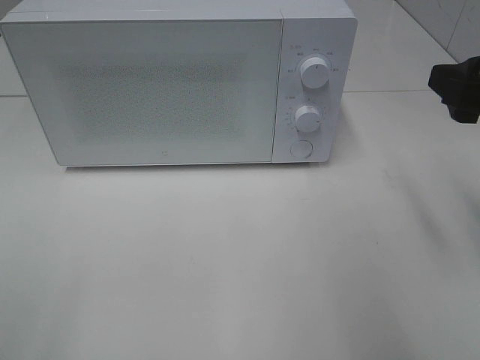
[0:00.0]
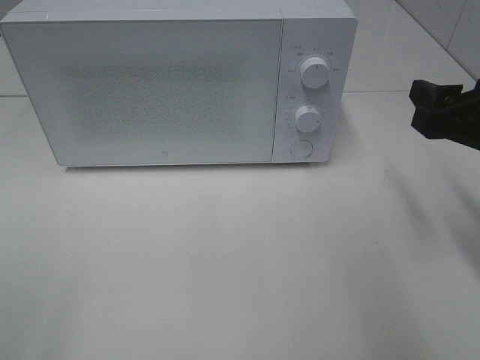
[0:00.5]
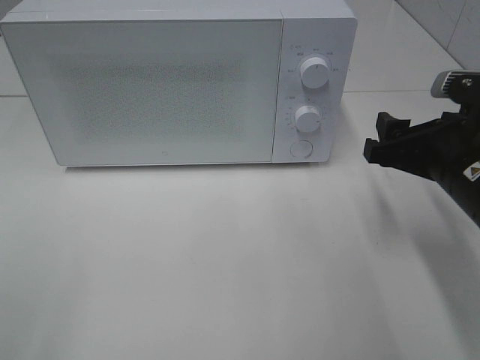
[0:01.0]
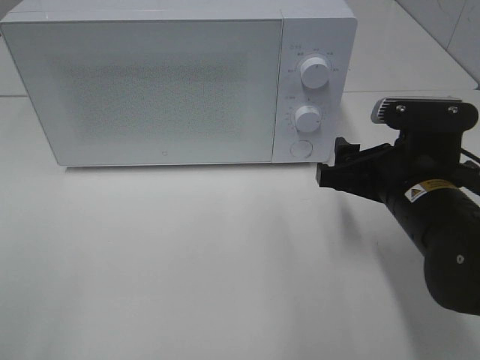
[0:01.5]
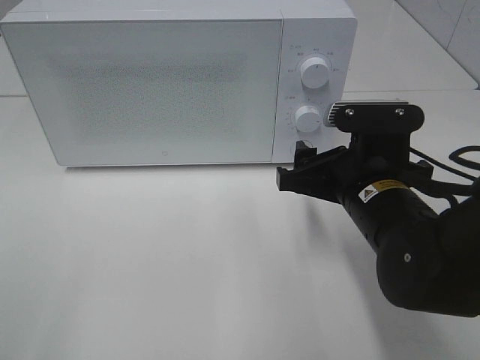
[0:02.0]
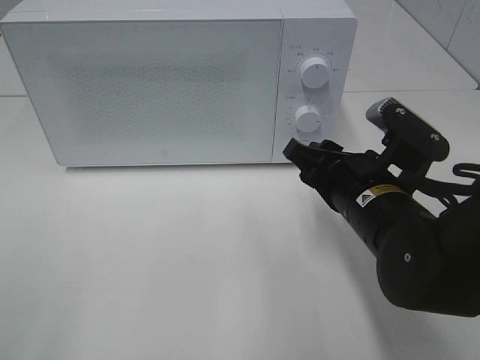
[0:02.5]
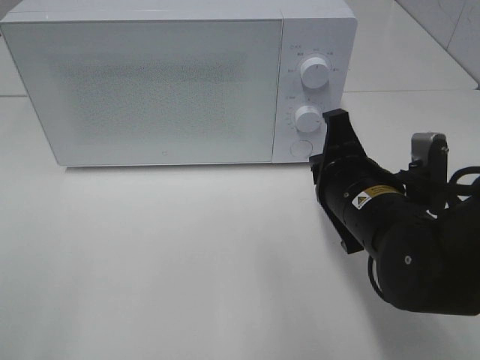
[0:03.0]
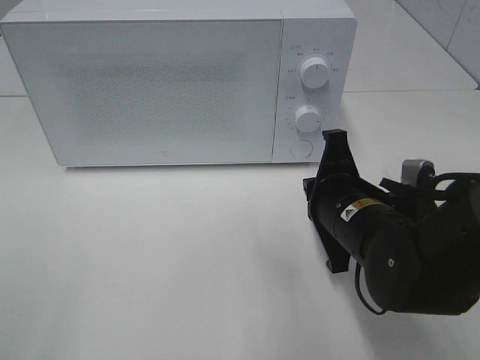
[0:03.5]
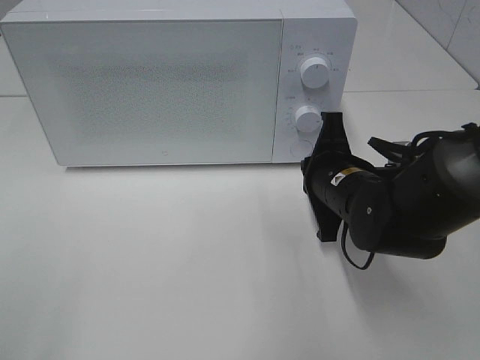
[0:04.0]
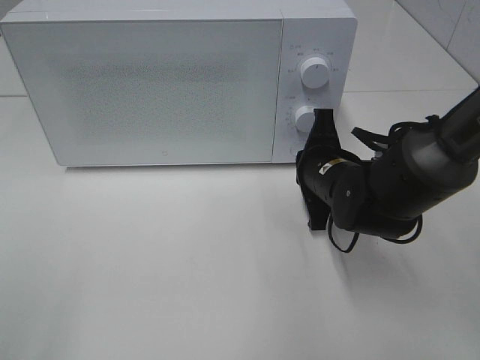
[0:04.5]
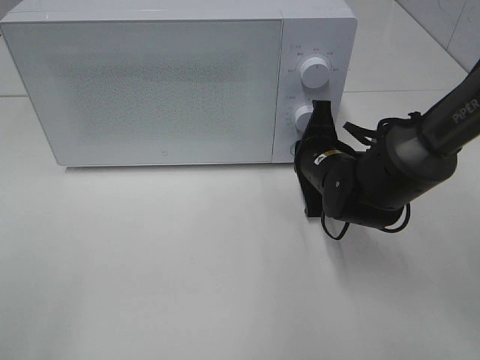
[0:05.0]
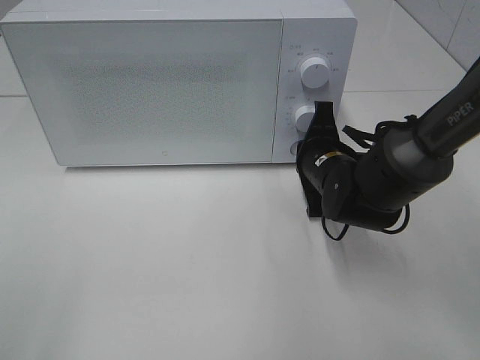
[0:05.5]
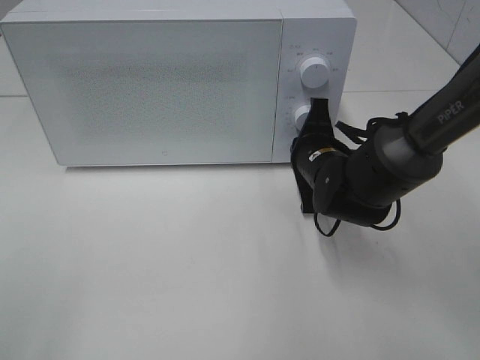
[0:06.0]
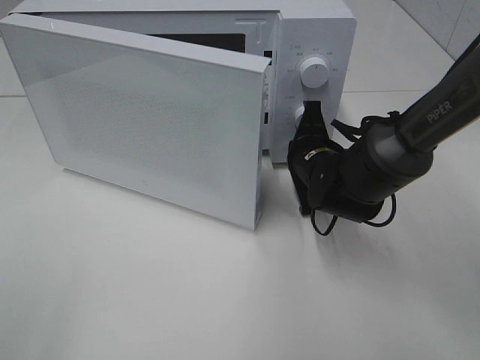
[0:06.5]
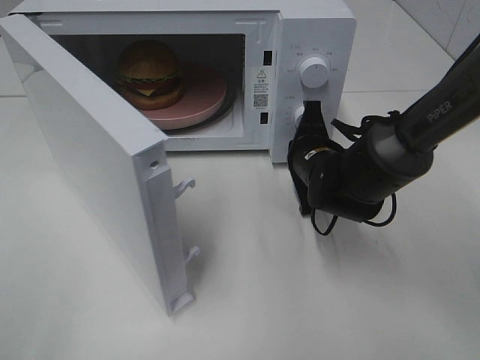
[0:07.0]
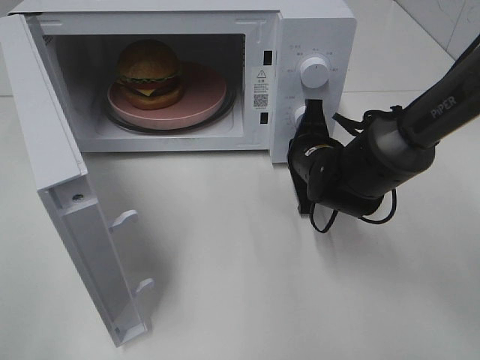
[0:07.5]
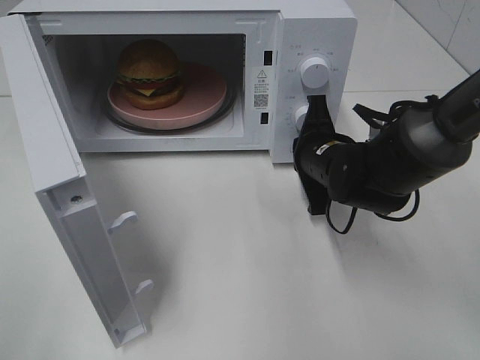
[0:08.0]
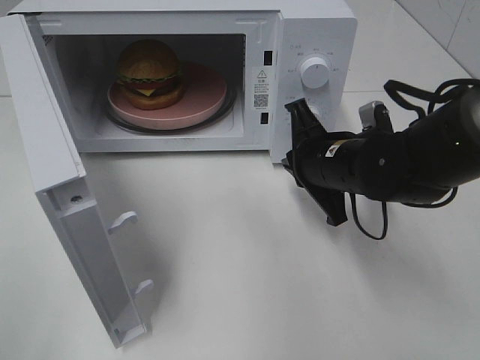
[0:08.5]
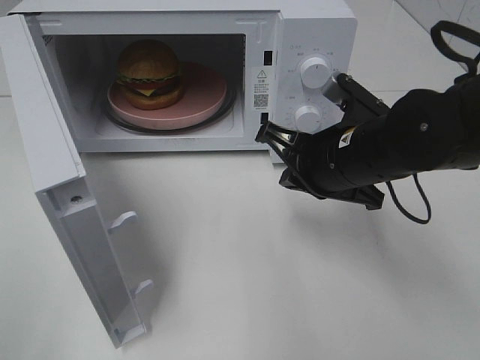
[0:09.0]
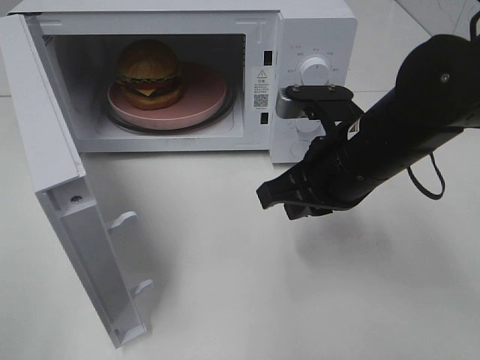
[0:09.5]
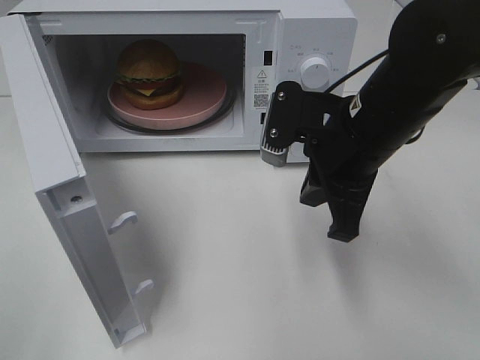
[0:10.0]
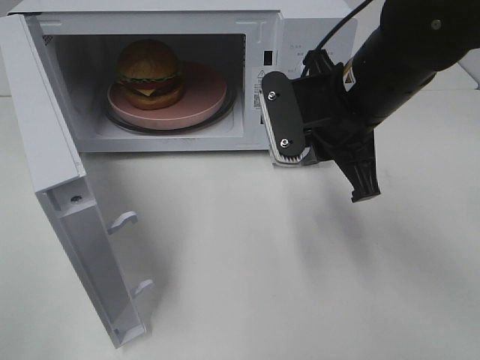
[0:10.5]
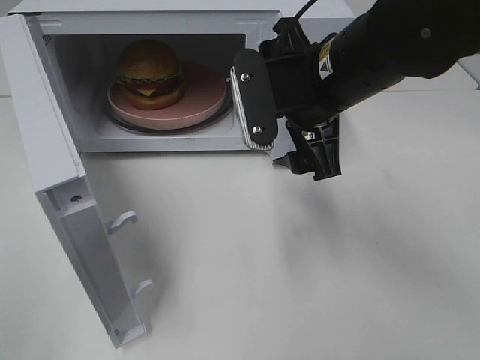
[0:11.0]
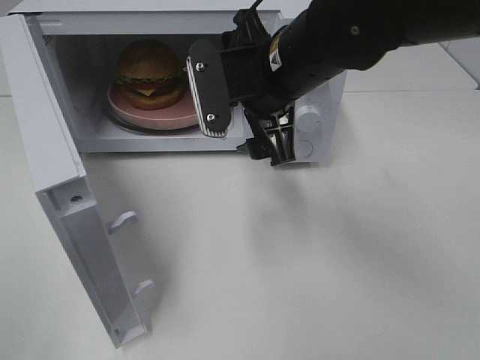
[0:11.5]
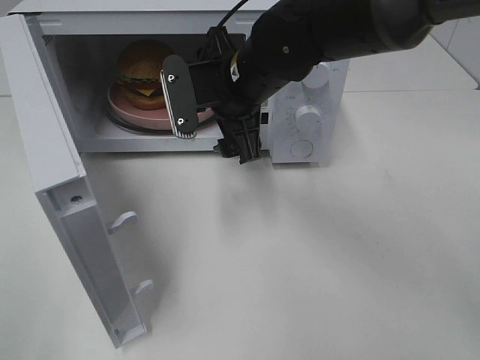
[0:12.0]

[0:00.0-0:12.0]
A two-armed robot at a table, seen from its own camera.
Task of the whole recording: Heat the burger.
Step, 0:00.0 to 0:08.0: Right hand: press the switch.
0:00.0 to 0:02.0: The right gripper is displaced to the left and downward by some 15 cm.
0:02.0 to 0:04.0: The right gripper is displaced forward by roughly 5 cm, and closes its fingers.
0:04.0 to 0:06.0: The right gripper travels forward by about 5 cm.
0:08.0 to 0:10.0: The right gripper travels upward and backward by approximately 15 cm.
0:10.0 to 0:12.0: The right gripper moves to the left and forward, about 15 cm, and opens.

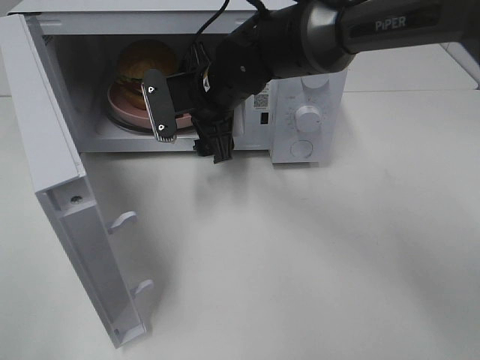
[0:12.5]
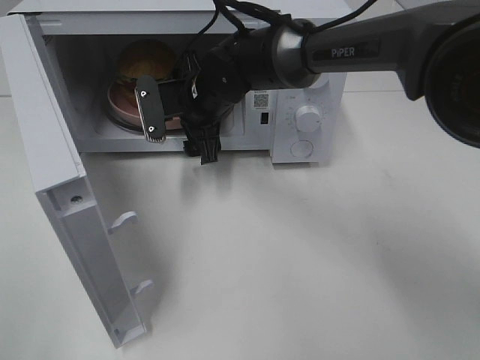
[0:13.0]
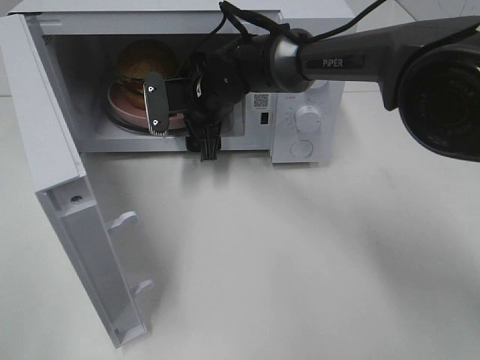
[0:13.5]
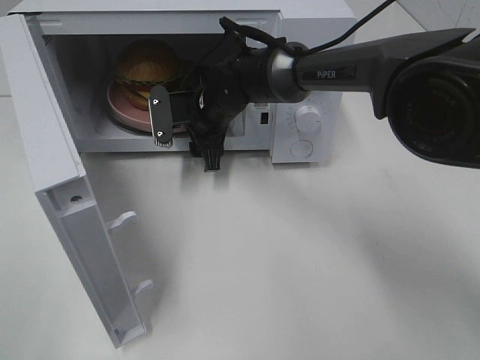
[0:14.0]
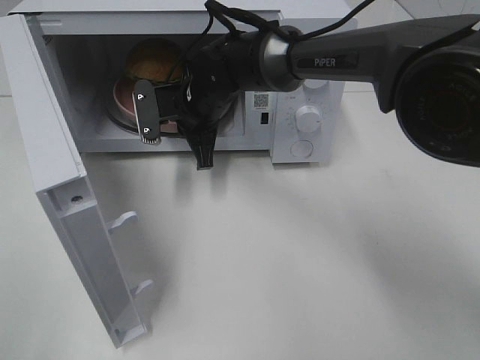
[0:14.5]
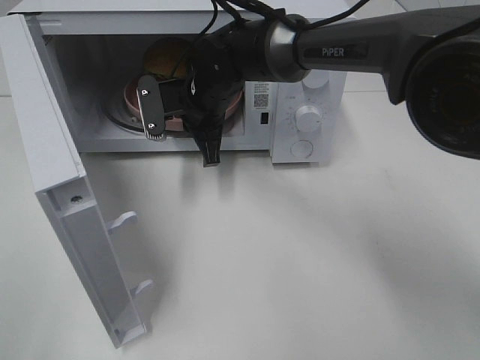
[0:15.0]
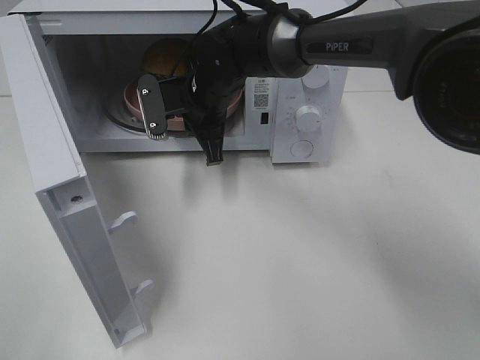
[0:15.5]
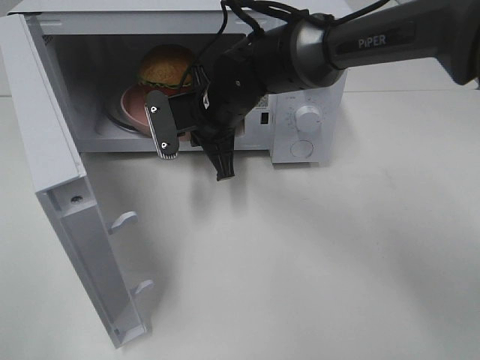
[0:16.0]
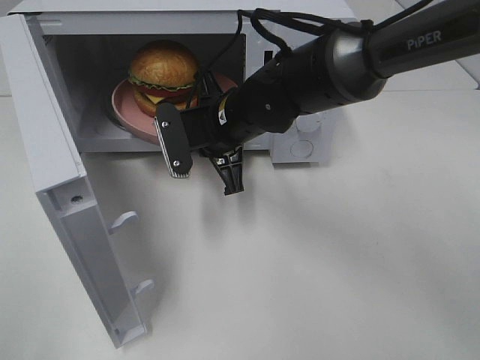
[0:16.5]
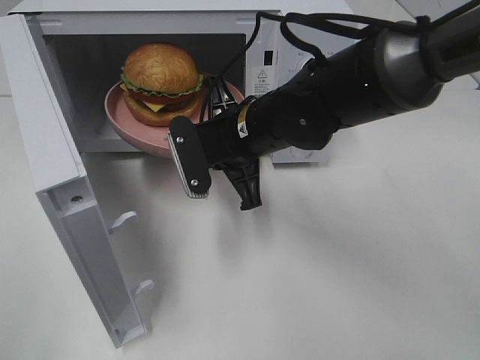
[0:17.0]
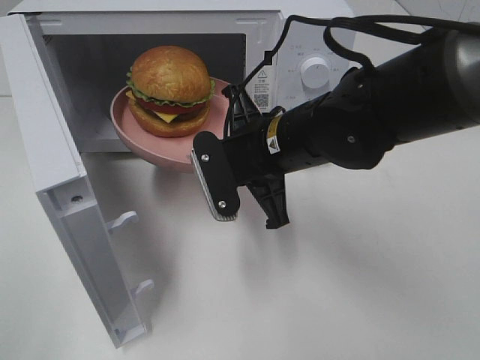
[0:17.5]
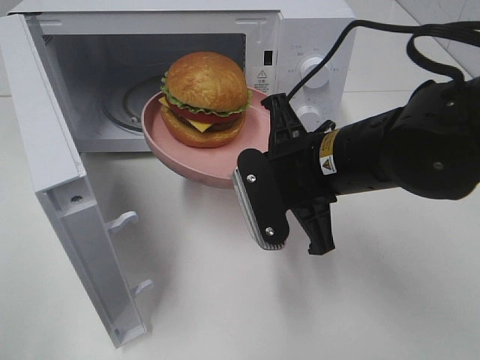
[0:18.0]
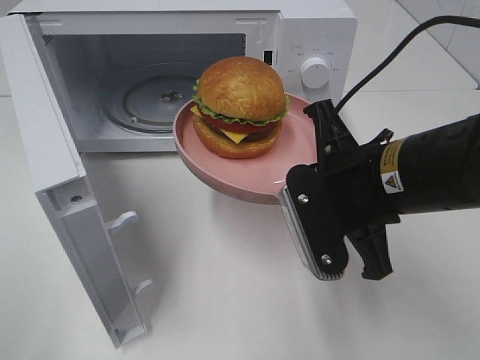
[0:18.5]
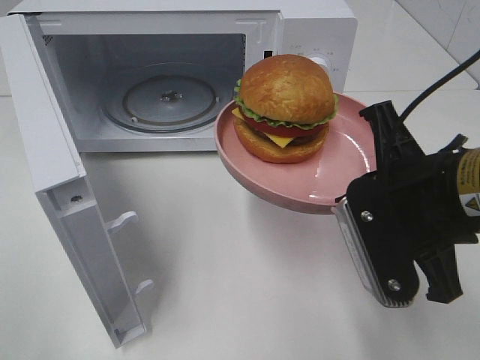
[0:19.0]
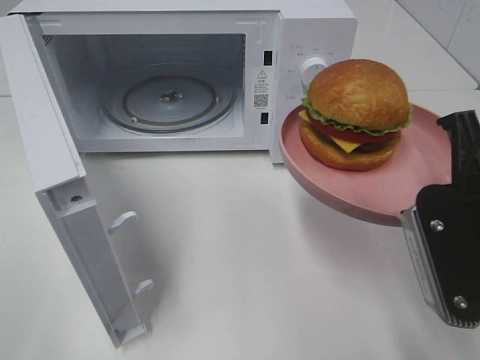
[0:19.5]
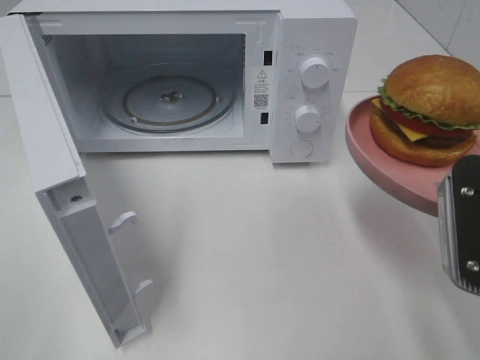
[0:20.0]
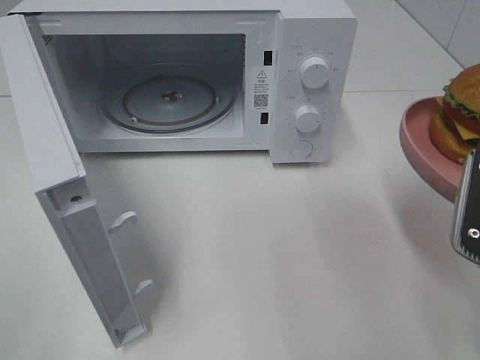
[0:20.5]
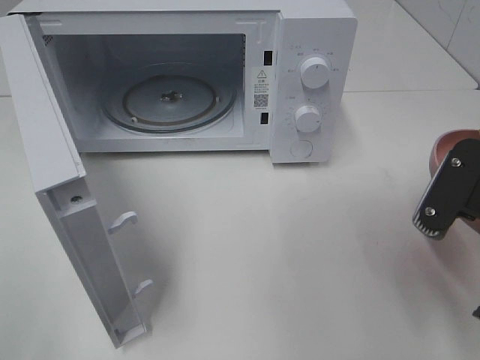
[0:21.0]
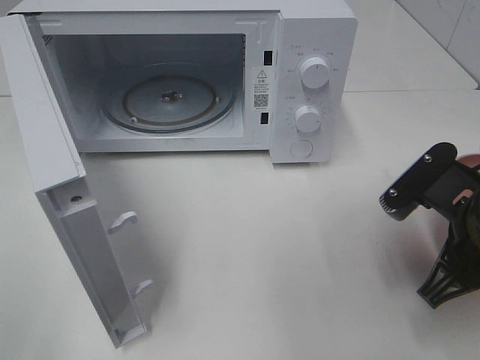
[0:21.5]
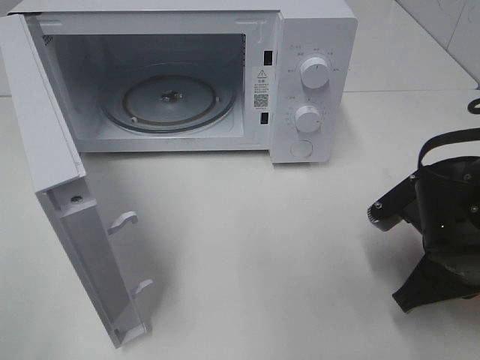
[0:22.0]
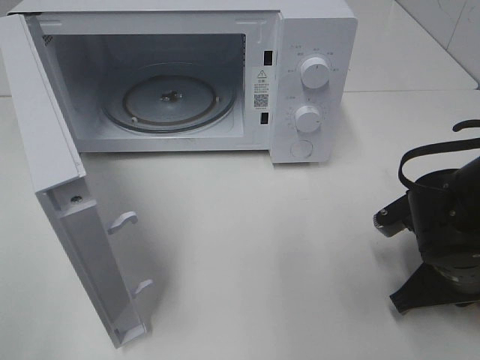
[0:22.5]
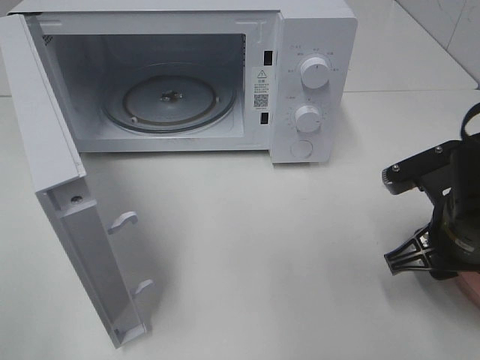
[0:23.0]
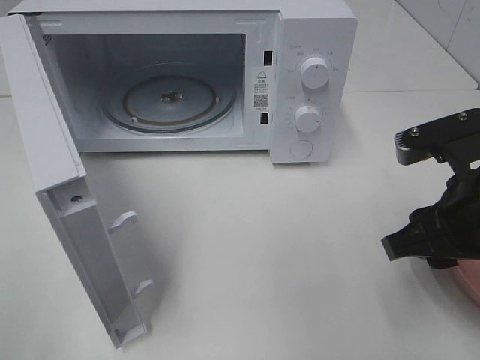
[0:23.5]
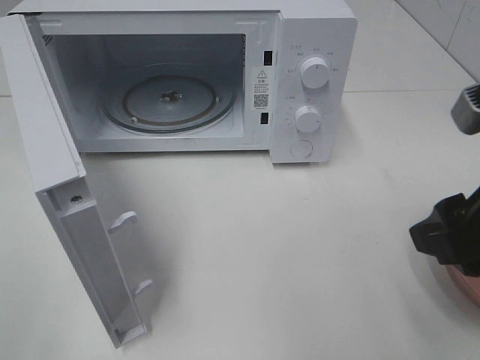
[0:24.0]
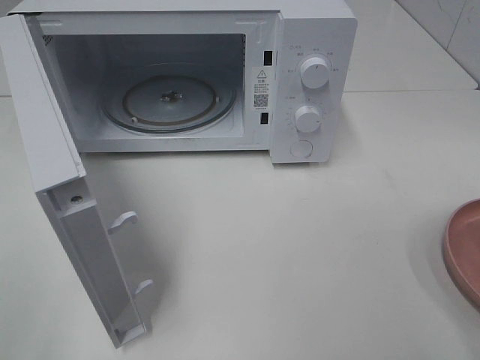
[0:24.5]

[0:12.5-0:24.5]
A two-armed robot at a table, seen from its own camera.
Task of the whole recording: Heat the burger.
Step, 0:12.5 to 0:14.5: Right hand: grab the plate with the hamburger.
Step, 0:15.0 to 0:23.0: Right hand: place the plate on the table.
0:12.5 to 0:14.5: The right gripper ends up about 5 cm from where it was, and closes.
0:14.5 to 0:16.5: The right gripper goes some 5 cm backward.
0:16.5 to 0:18.5: The right gripper shifts approximately 20 cm backward and to the right.
0:18.5 to 0:20.5: The right gripper shifts roughly 15 cm to the right and backward.
0:20.5 to 0:22.5: The right gripper shifts approximately 15 cm downward and forward.
0:22.5 to 0:24.5: The right gripper heads upward and backward, covering approximately 25 cm, and opens its fingers.

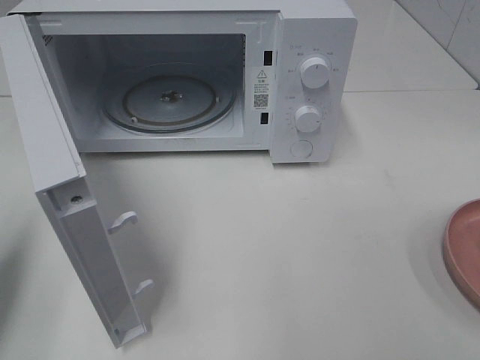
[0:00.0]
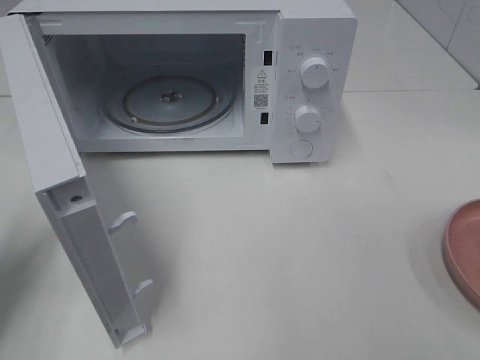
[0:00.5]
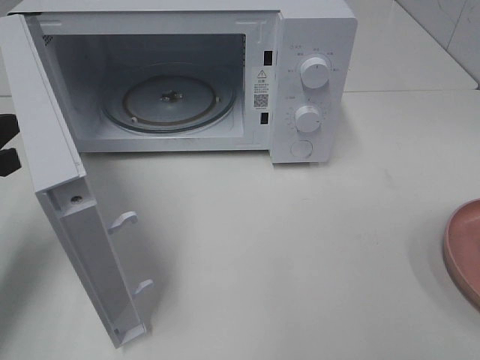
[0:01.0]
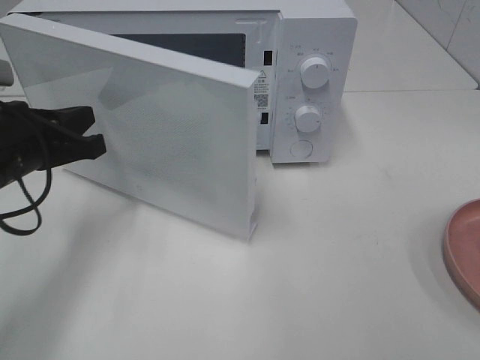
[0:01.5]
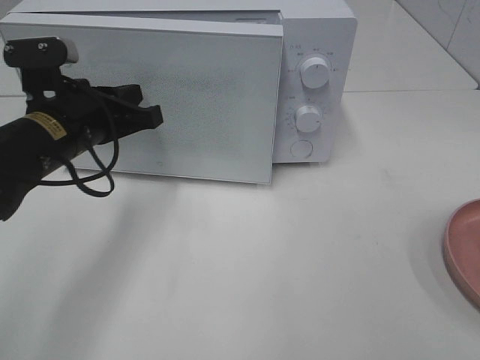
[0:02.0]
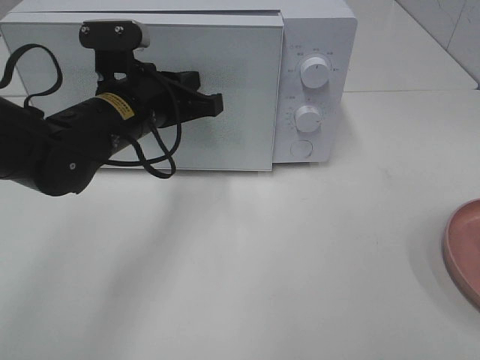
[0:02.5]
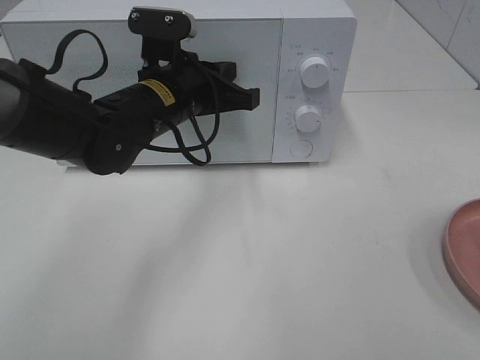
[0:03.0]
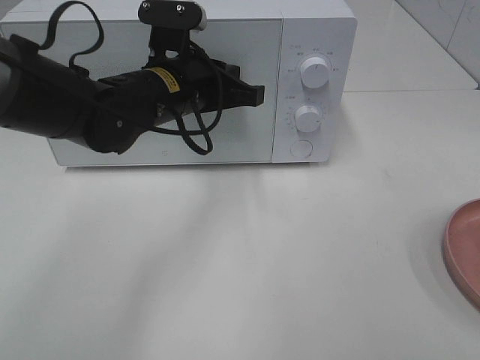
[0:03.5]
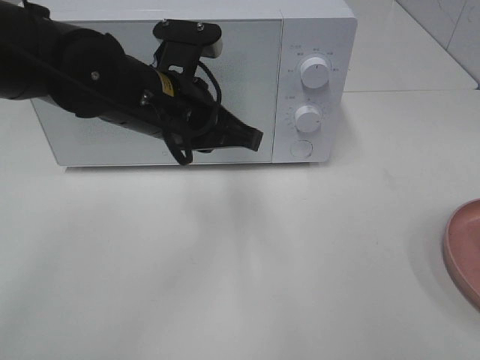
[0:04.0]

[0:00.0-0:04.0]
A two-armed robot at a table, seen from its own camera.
Task of the whole recording: Heat the burger.
Step, 0:00.0 to 0:03.5: Left hand: close the microwave door.
0:00.0 to 0:02.0: The left gripper is displaced to the right and forward by approximately 20 cm.
0:02.0 to 0:04.0: The left gripper heads to the right, covering approximately 10 cm.
